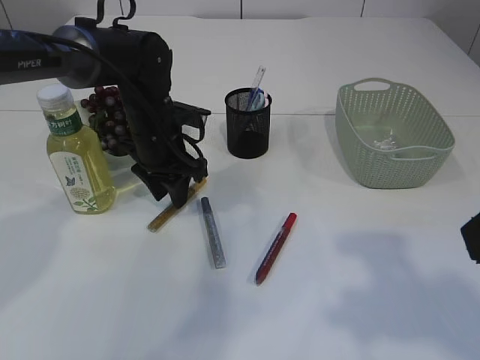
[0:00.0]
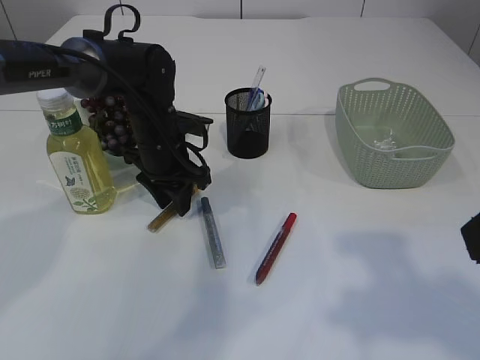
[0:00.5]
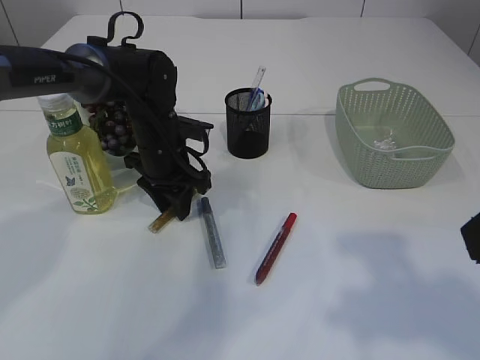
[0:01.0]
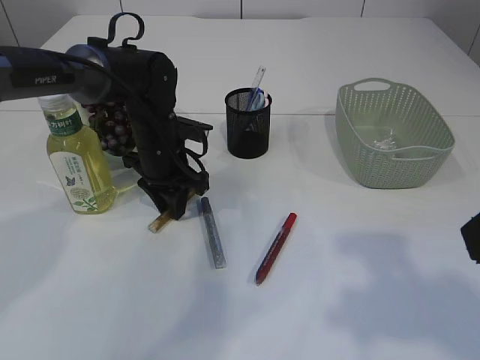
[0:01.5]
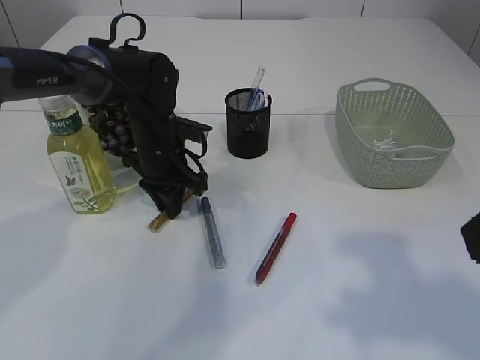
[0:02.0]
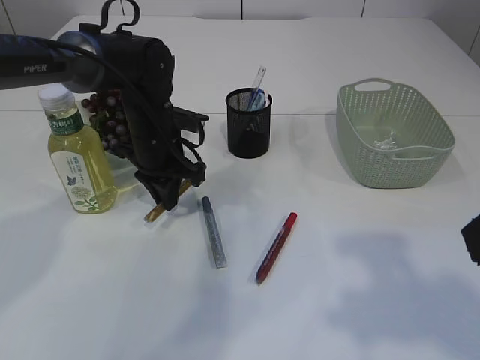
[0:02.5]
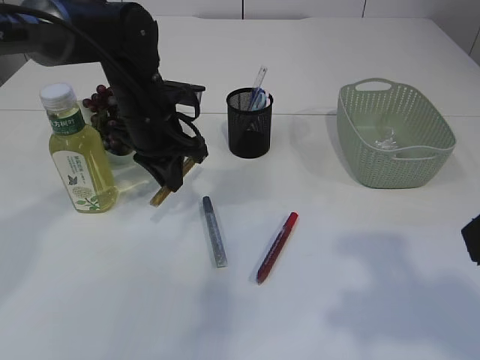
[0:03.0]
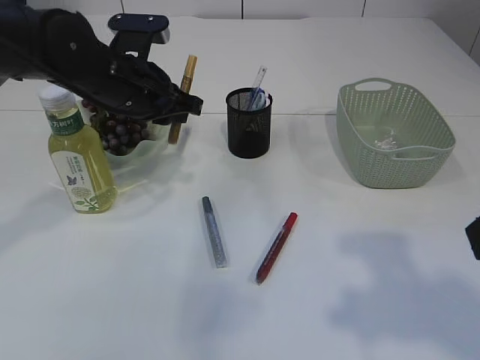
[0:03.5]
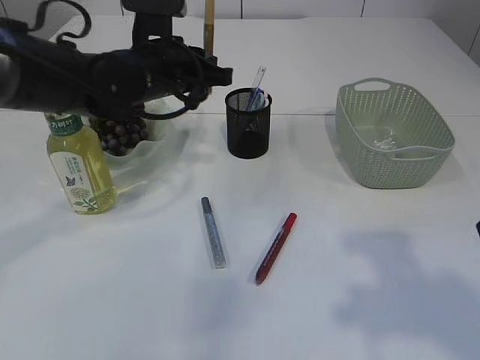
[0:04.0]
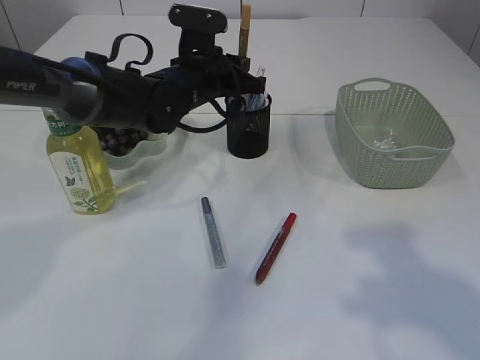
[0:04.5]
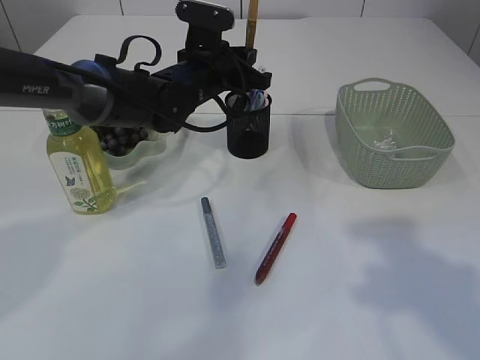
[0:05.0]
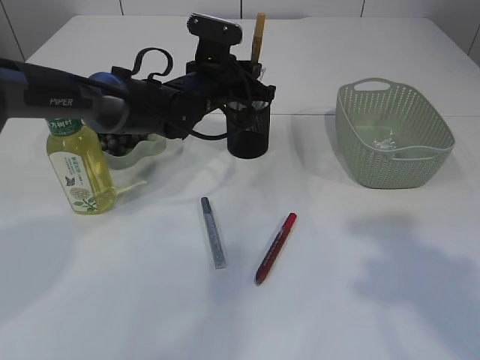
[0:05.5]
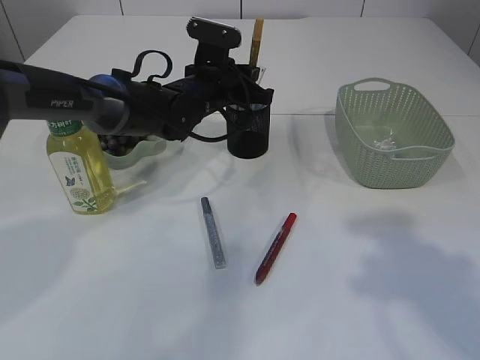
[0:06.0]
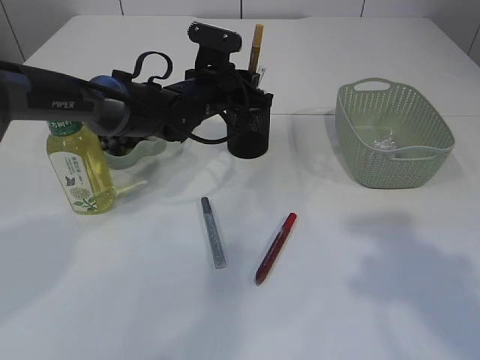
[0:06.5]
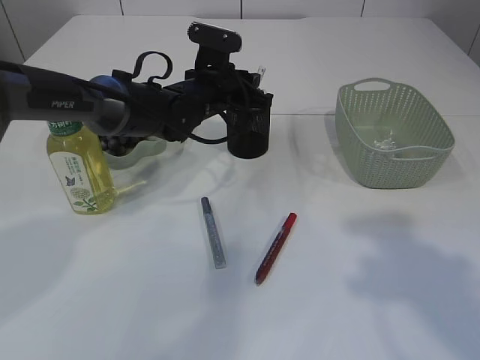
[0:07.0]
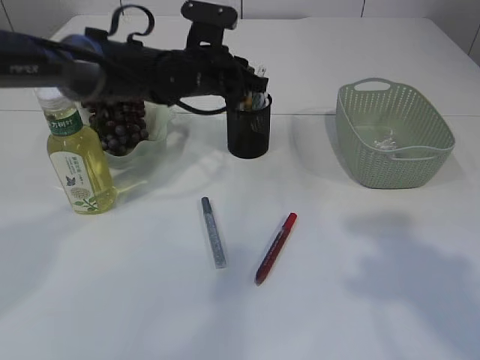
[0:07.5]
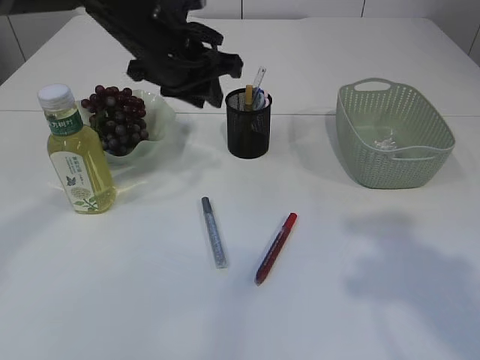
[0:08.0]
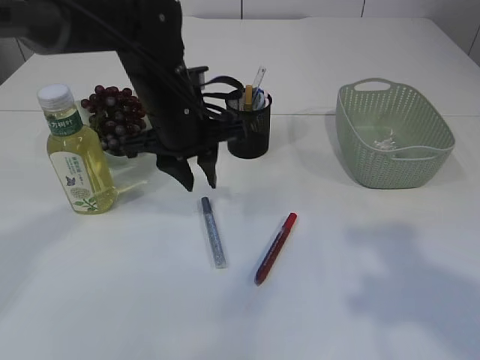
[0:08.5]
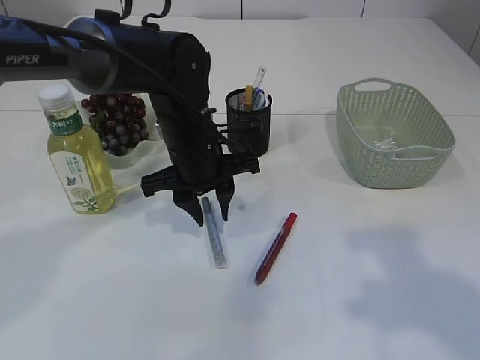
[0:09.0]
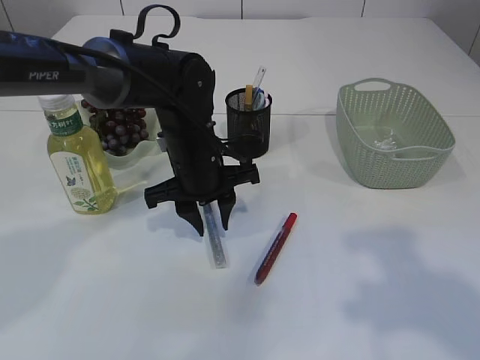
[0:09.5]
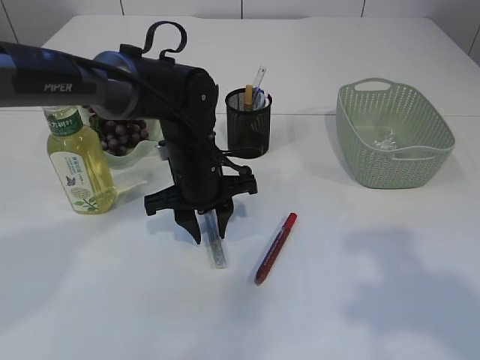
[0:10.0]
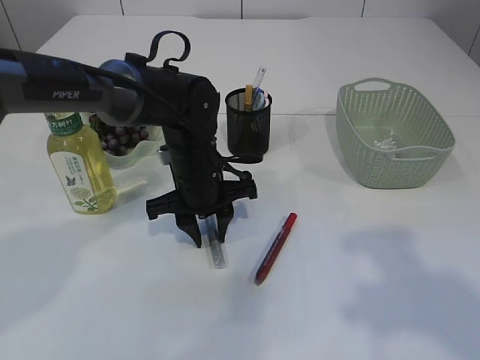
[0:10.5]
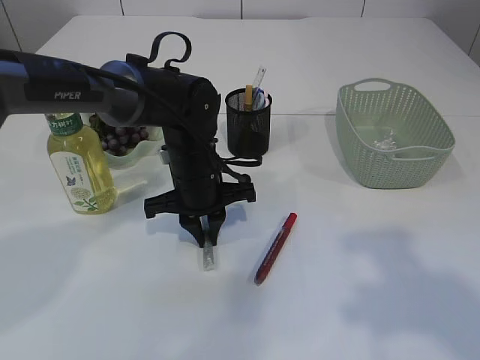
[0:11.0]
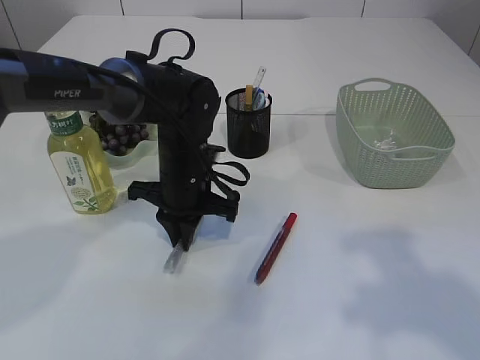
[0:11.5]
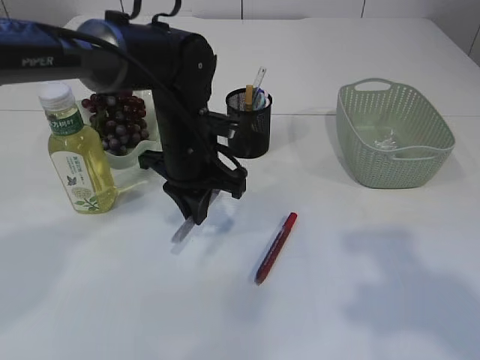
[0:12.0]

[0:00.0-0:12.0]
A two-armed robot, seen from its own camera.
Step, 0:00.0 to 0:02.5: pick up the yellow glue.
Step, 0:03.0 to 0:07.5: place the yellow glue into the pen holder.
Step, 0:08.0 to 0:11.5: pick up the silver glue.
0:00.0 to 0:02.0: The left gripper closes up.
0:02.0 to 0:04.0: The left gripper heads upward, covering some 10 cm.
0:04.0 to 0:06.0: The left gripper travels forward, downward and to the right by some 10 cm.
0:06.0 to 0:08.0: The left gripper moves upward and backward, approximately 15 cm.
0:08.0 to 0:10.0: The left gripper shifts approximately 15 cm downward.
0:10.0 to 0:12.0: The left gripper closes its fingers.

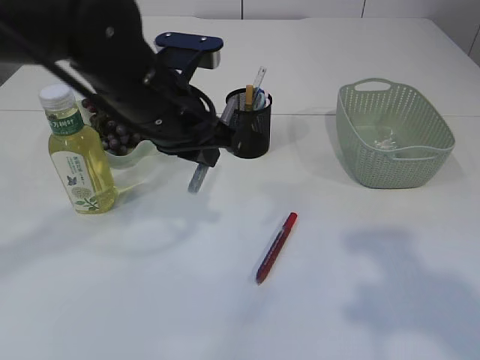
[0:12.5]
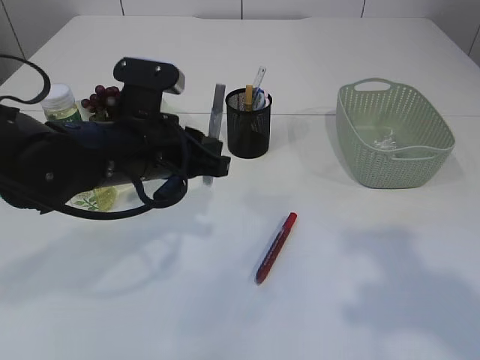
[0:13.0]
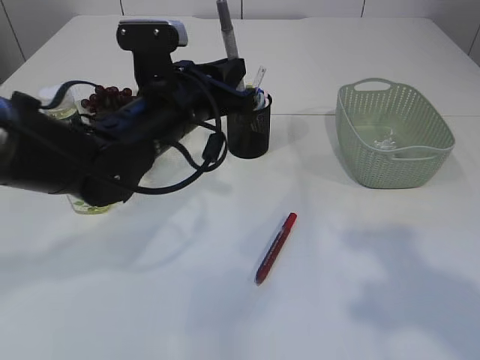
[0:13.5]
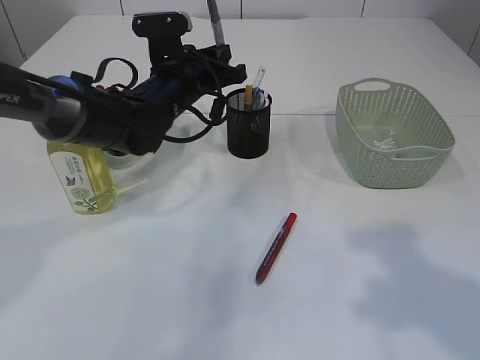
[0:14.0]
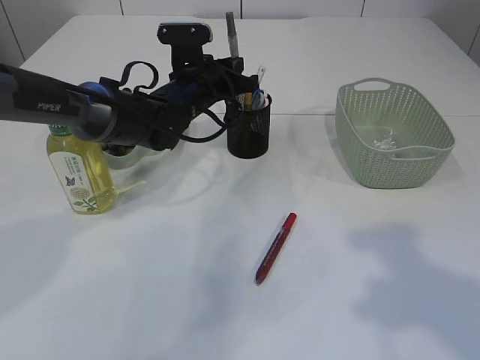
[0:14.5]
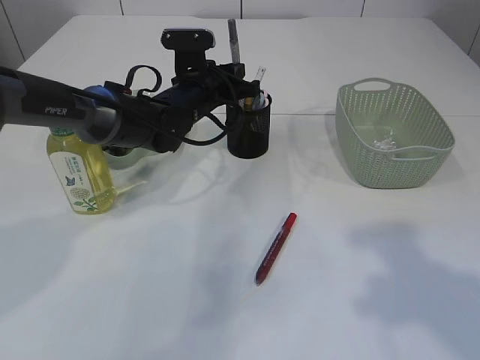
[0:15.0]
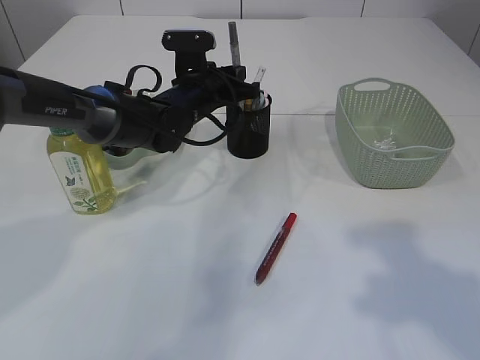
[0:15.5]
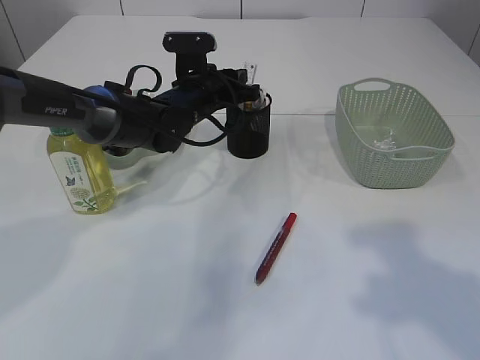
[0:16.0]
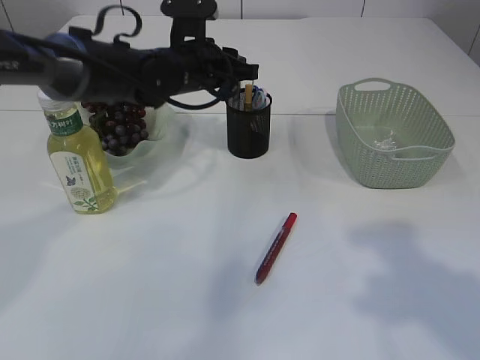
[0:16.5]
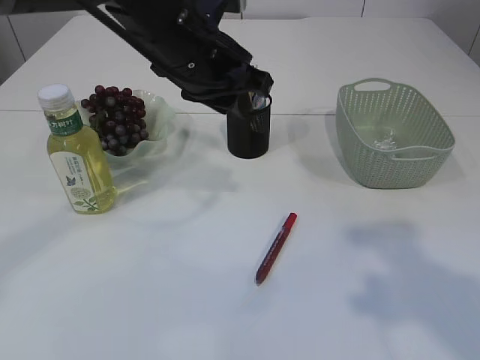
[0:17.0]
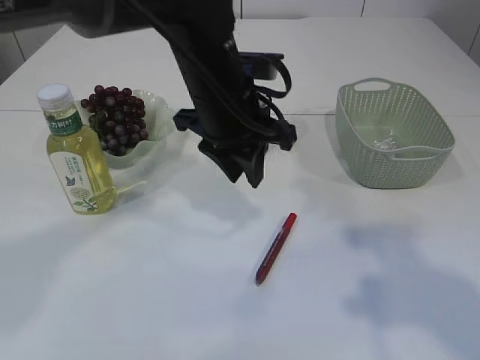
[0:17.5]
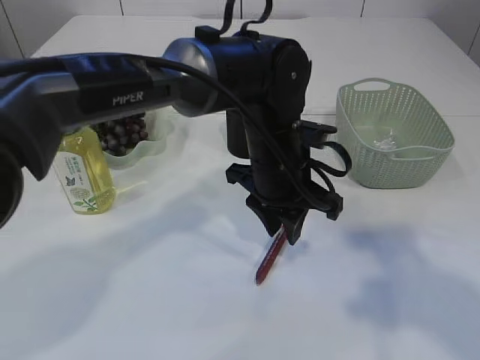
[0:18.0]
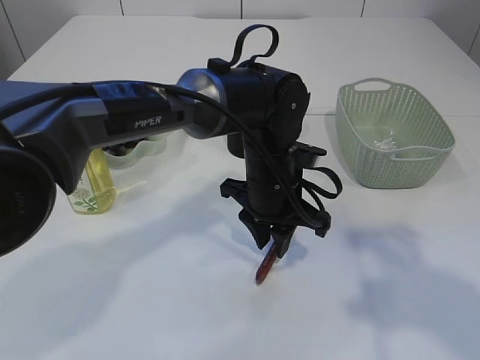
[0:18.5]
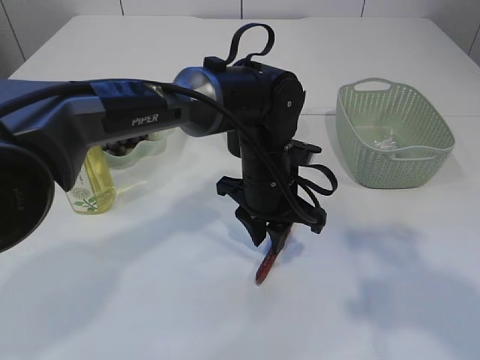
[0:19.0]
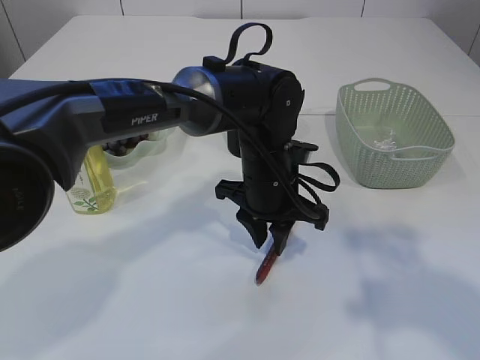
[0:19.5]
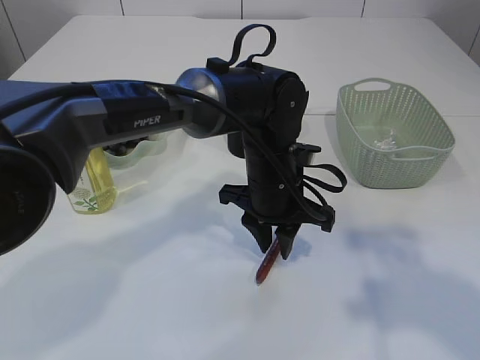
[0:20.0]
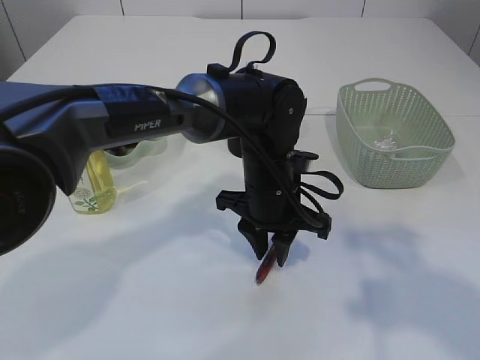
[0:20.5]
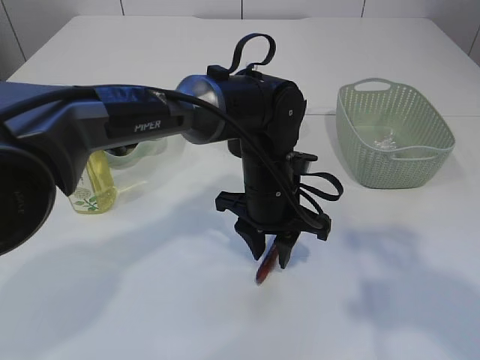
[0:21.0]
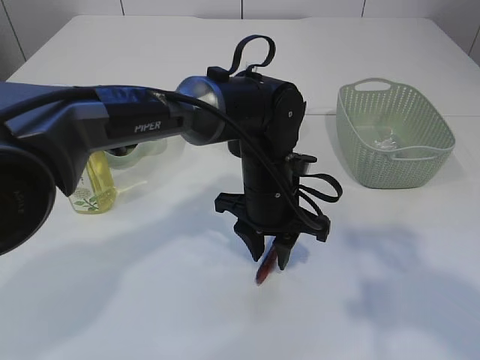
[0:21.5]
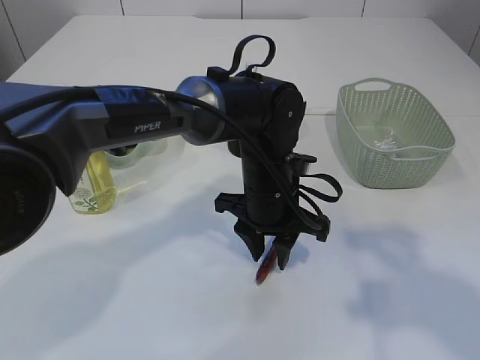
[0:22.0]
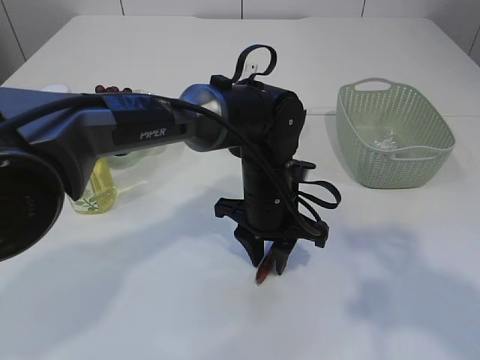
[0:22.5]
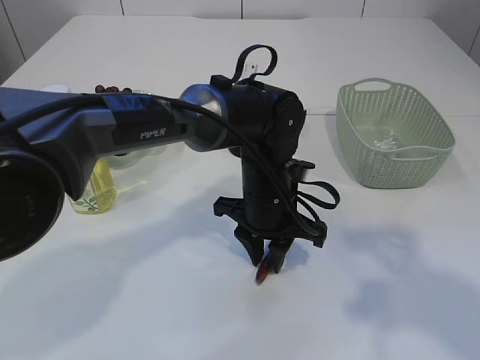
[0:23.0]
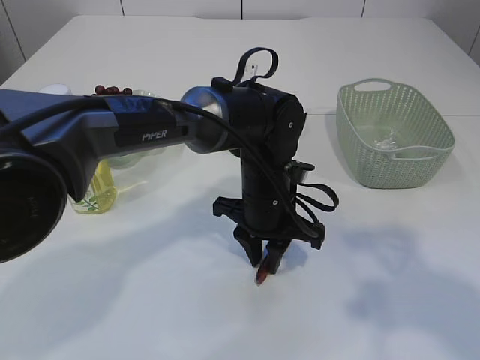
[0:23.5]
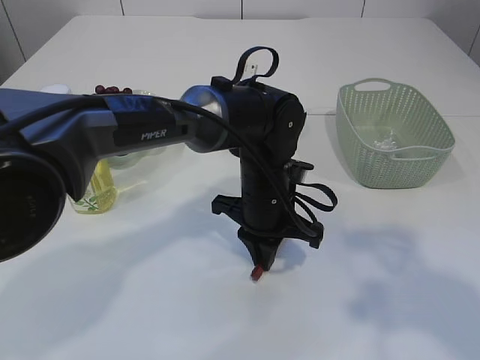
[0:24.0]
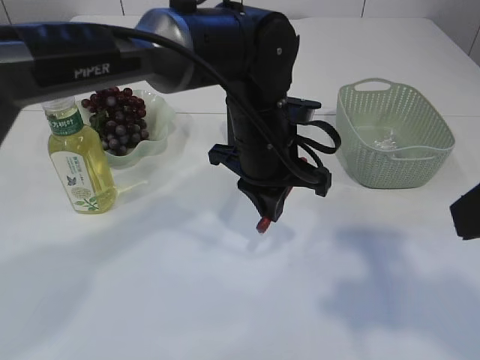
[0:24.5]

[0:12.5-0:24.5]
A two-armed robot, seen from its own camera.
Step, 0:12.5 to 0:16.5: place the silver glue into the pen holder.
Step, 0:17.0 to 0:24.0: pick up the red glue.
0:12.5 to 0:14.5: The left gripper moves forward and downward, approximately 15 cm.
0:14.5 to 0:16.5: The grippers make only small movements.
0:16.5 to 0:18.5: The left gripper heads backward, to the right and downward, covering some 15 cm.
0:18.5 to 0:20.5: The grippers make only small movements.
0:20.5 to 0:22.5: The two grippers keep their place.
0:22.5 to 0:24.5: The left gripper is displaced upward by approximately 10 cm, and closes.

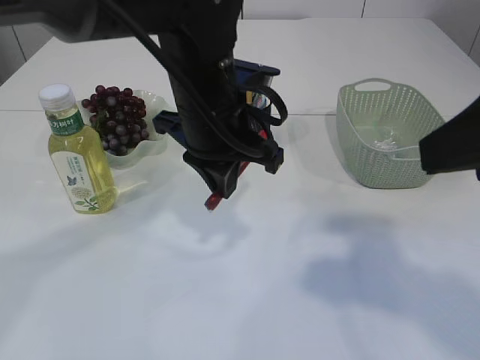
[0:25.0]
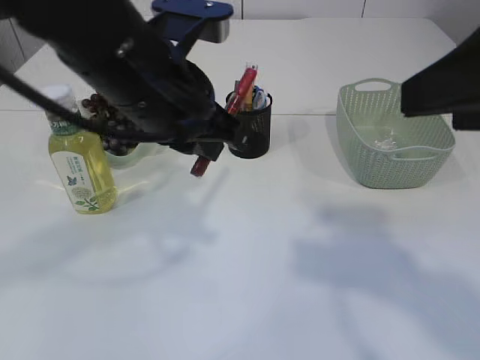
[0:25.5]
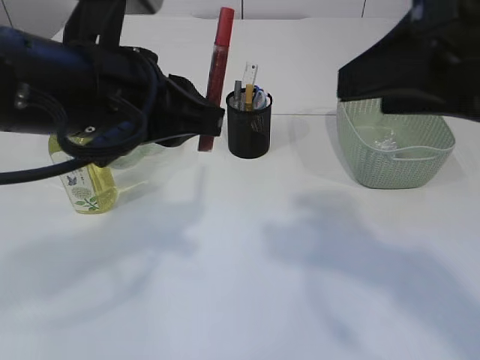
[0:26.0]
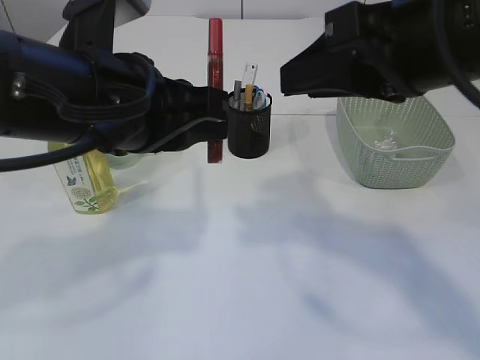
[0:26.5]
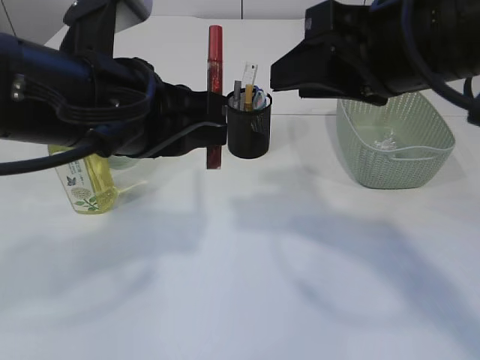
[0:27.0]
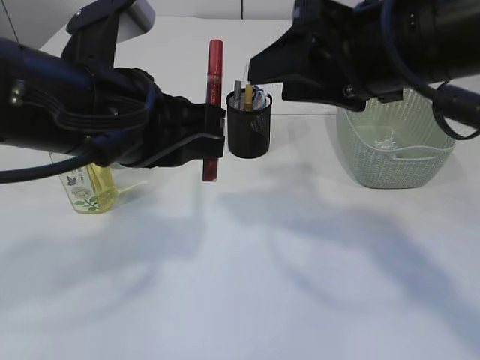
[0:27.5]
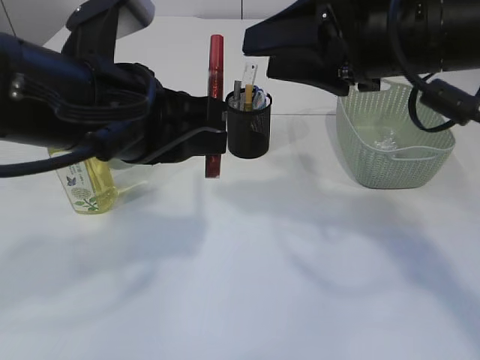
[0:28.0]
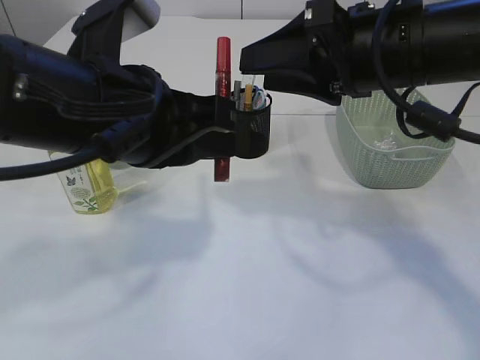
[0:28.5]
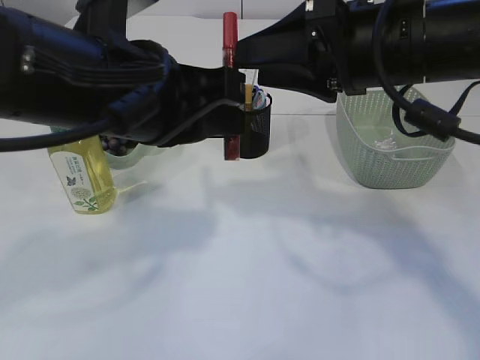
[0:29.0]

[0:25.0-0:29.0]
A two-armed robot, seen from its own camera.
0:25.0 to 0:27.0: The left gripper moves backward and to the left, approximately 10 cm; the right gripper heads forward and to the left, covering approximately 10 cm.
0:27.0 to 0:29.0: The right gripper shifts by approximately 5 cm.
